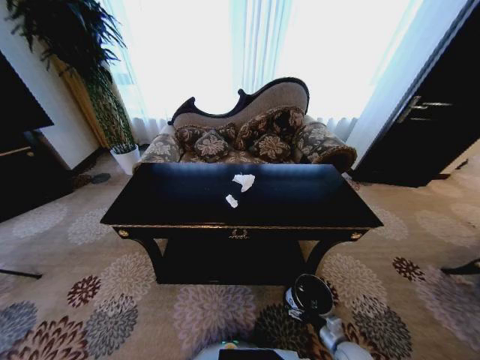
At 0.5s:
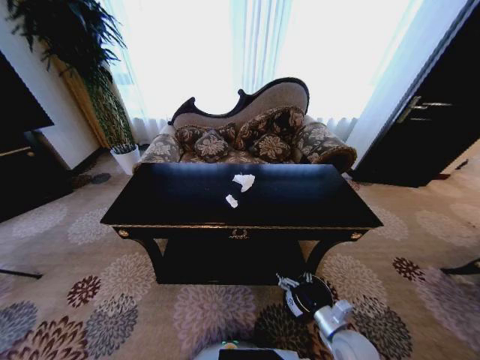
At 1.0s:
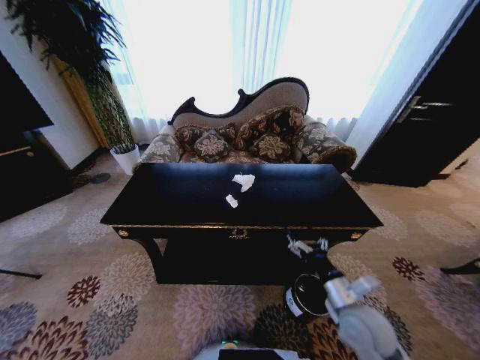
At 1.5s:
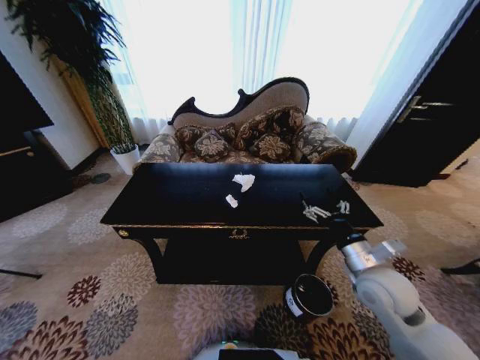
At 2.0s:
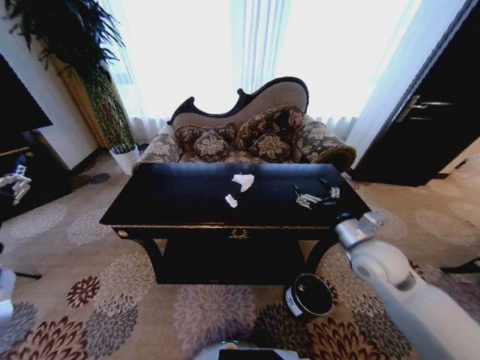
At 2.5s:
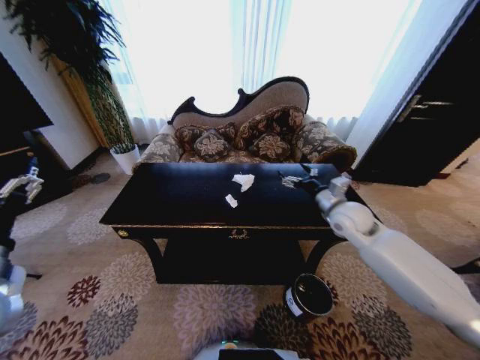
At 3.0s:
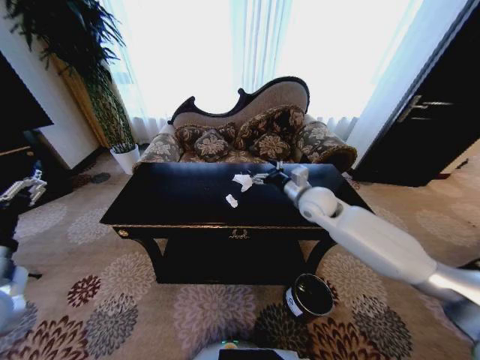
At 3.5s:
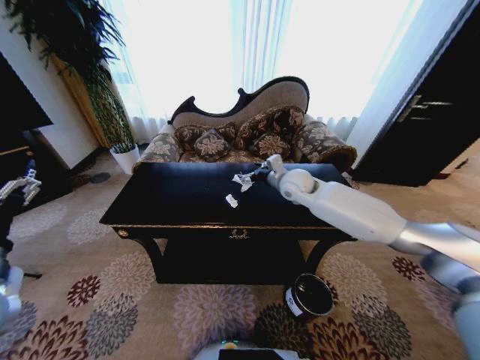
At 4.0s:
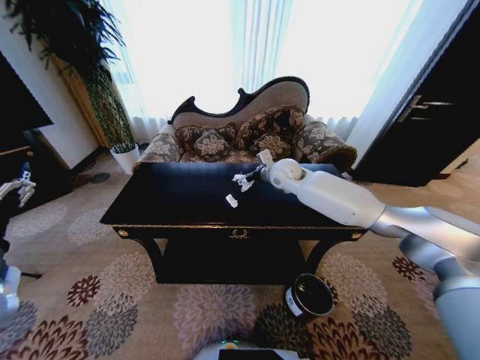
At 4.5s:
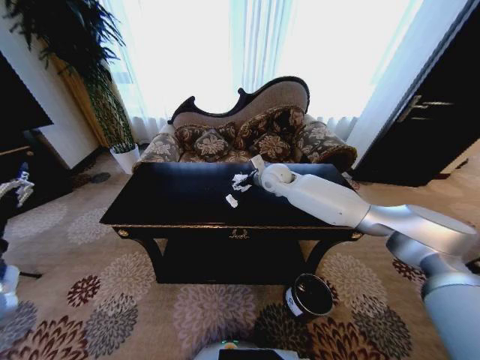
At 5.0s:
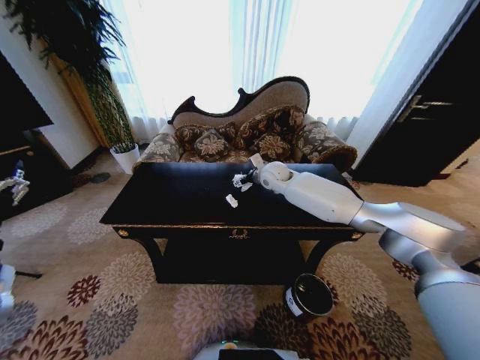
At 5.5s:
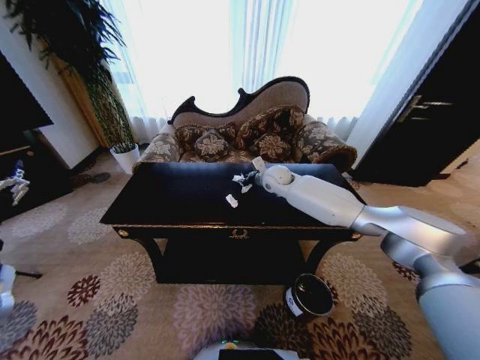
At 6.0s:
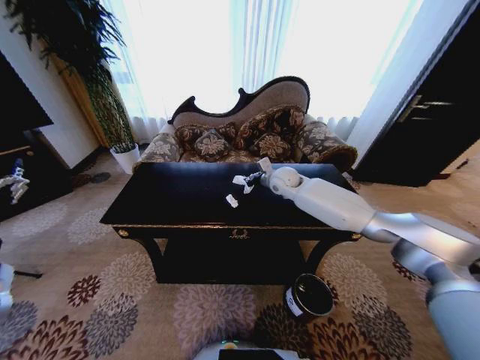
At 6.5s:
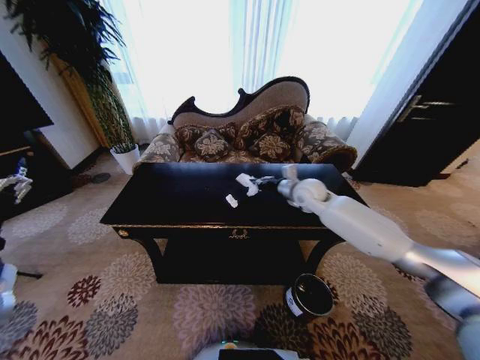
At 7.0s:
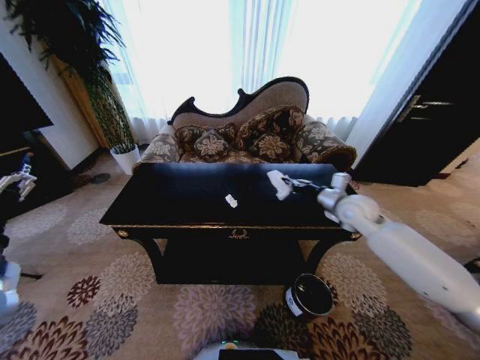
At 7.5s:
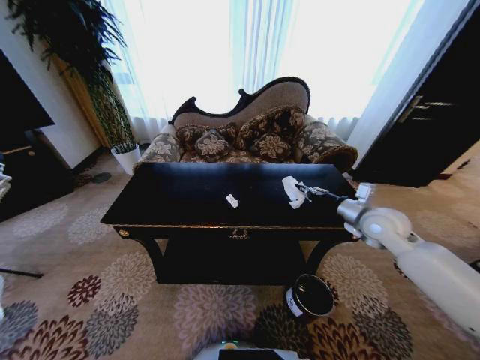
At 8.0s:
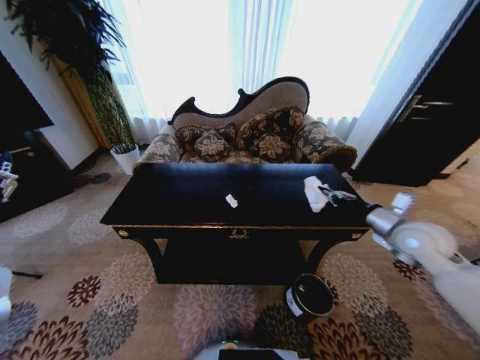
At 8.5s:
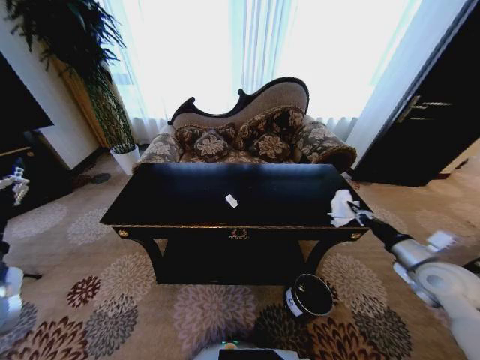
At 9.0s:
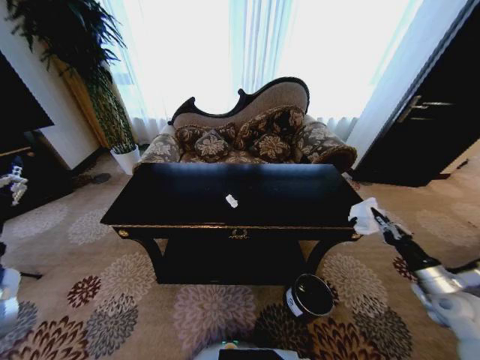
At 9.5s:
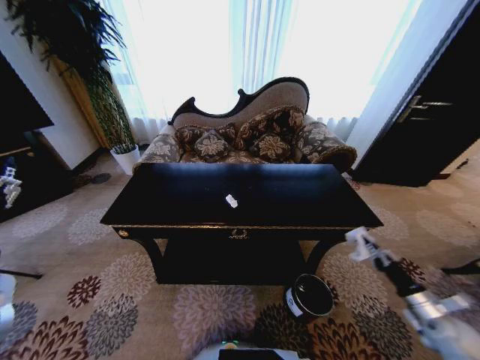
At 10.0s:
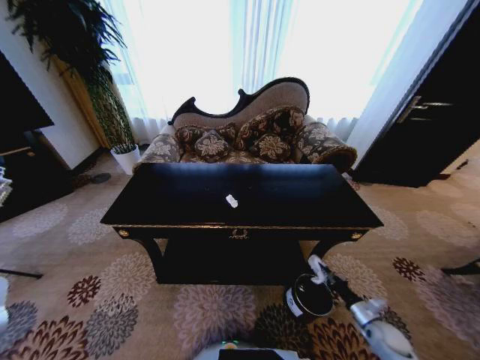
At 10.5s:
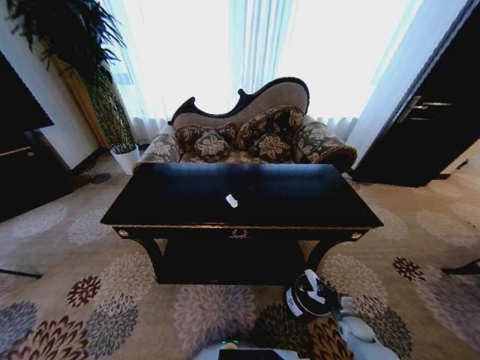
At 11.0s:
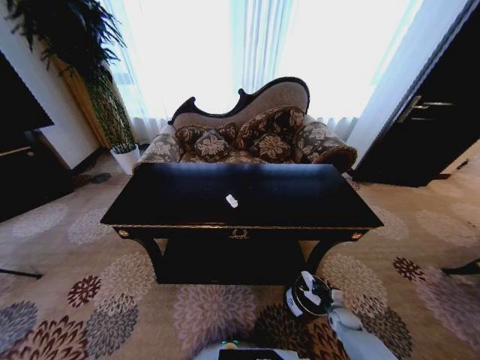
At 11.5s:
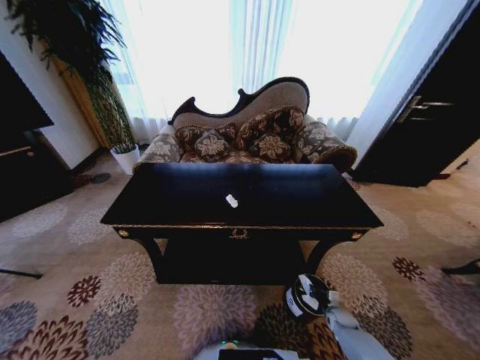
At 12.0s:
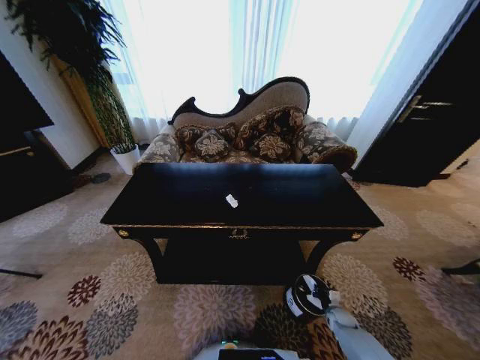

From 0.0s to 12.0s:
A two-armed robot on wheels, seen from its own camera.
Task of the whole recording: Move to the front of the table and place the trash on the table into the trash bin.
From 0.0s to 2.0s: The right gripper is displaced upward and forward by about 40 cm.
From 2.0s to 4.0s: The right gripper shifts some 30 cm forward and to the left.
From 4.0s to 6.0s: The right gripper closes.
From 6.0s to 8.0s: The right gripper heads to the right and backward, covering approximately 35 cm.
From 8.0s to 10.0s: The right gripper is displaced downward and backward by roughly 35 cm.
From 10.0s to 12.0s: The right gripper moves downward, forward and to the left, some 15 cm.

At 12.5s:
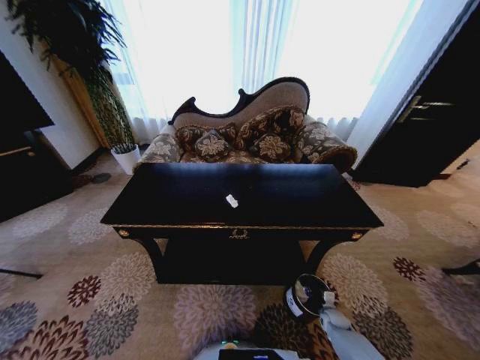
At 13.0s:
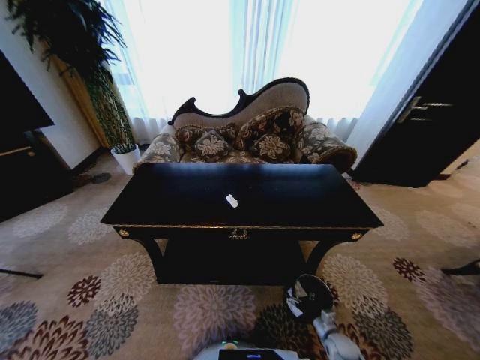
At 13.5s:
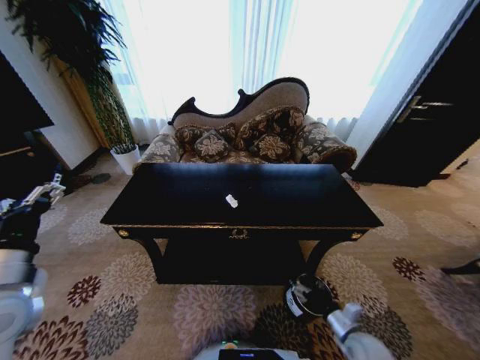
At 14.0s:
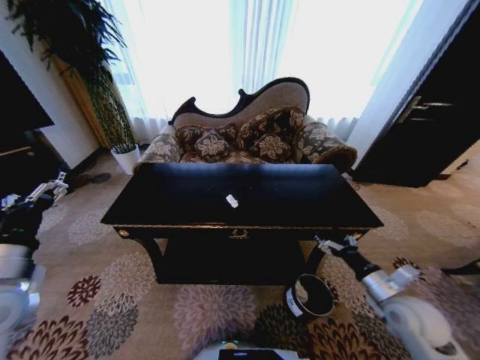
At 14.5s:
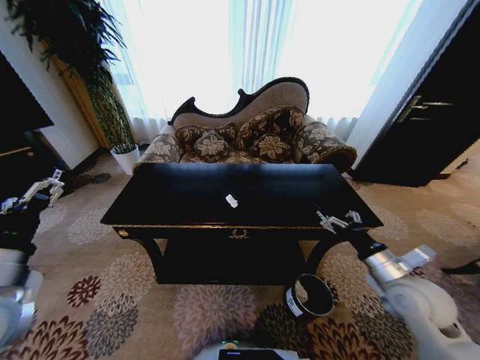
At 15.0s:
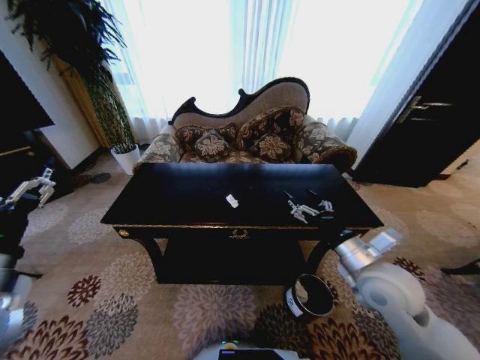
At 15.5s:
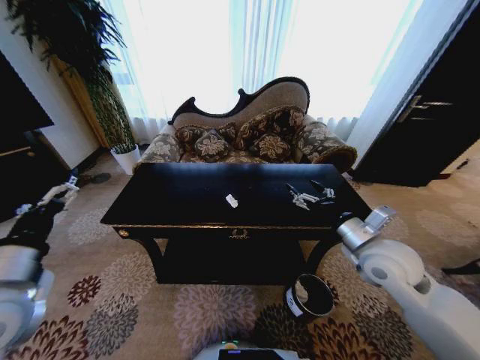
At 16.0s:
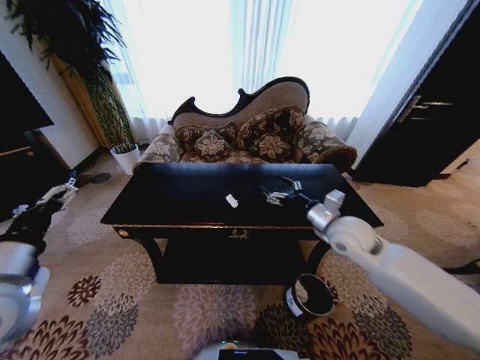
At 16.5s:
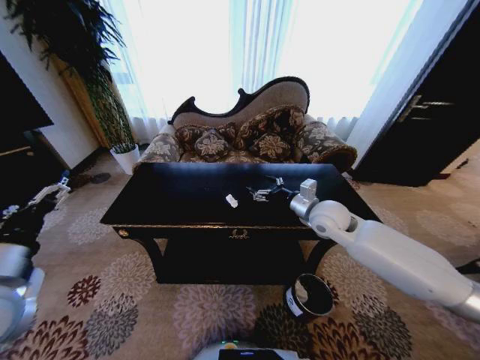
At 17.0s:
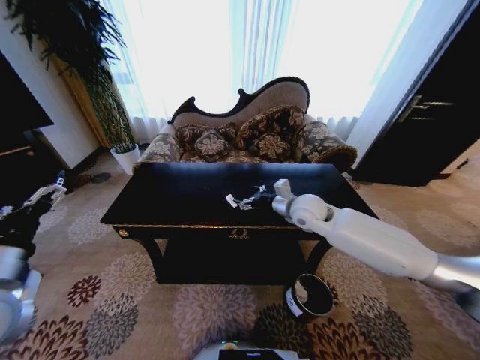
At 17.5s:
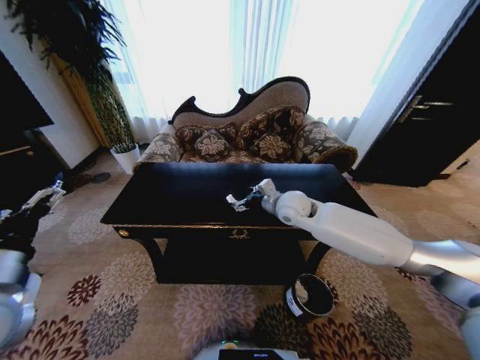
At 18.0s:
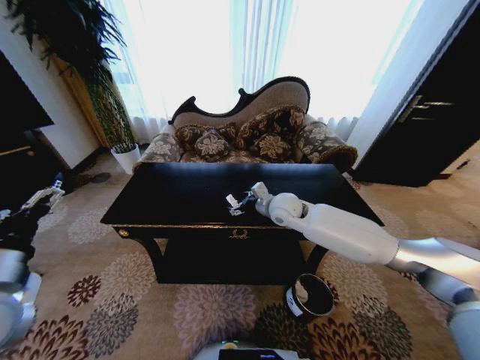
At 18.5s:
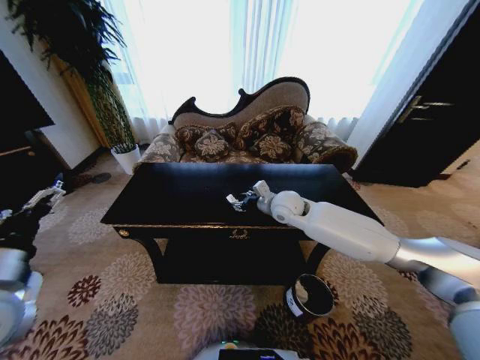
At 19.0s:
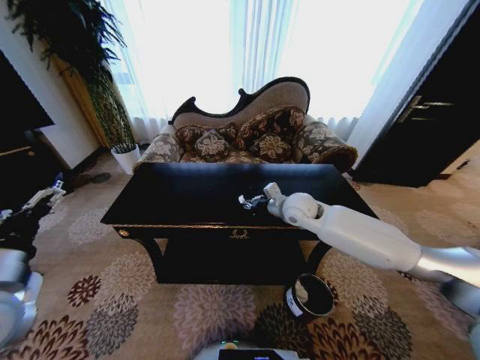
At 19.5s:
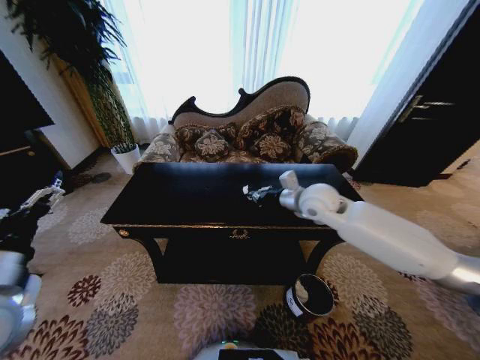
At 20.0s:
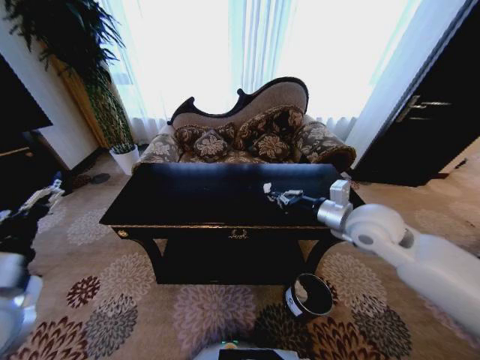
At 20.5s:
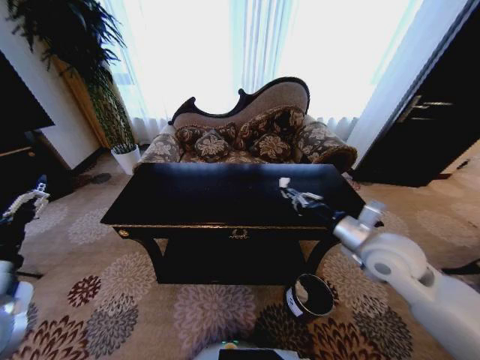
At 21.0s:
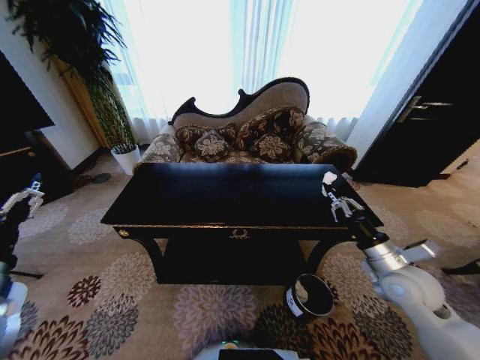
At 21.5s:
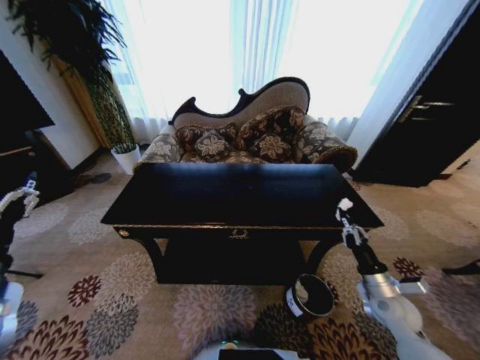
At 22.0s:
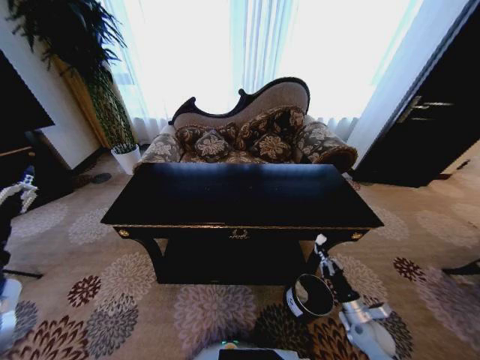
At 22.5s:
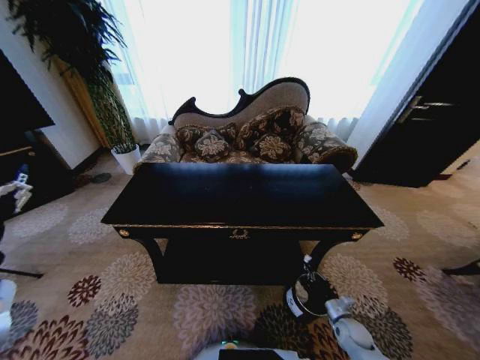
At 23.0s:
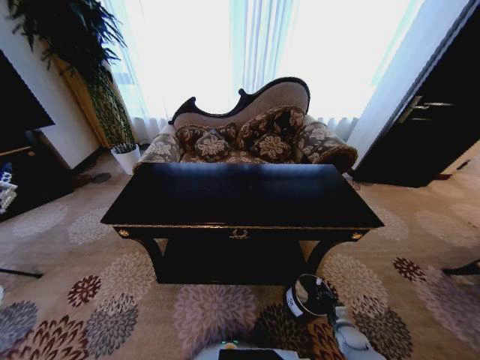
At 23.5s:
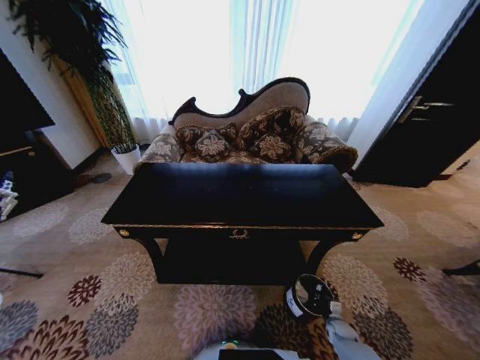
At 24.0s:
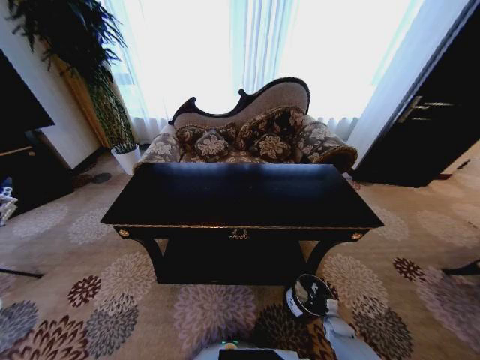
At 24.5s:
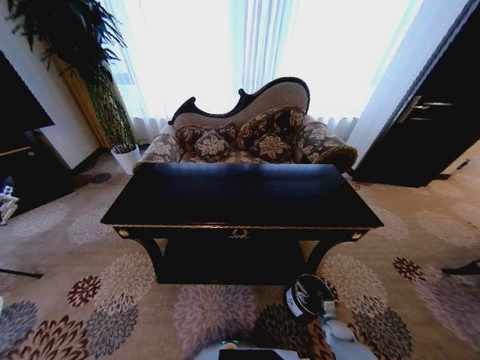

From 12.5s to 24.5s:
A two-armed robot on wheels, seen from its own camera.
Task of the whole recording: Move to the front of the table and place the trash on the table into the trash bin.
From 12.5s to 14.5s: The right gripper goes roughly 40 cm upward, and opens its fingers. The left gripper ends up some 5 cm from where it was.
From 14.5s to 16.5s: The right gripper shifts some 20 cm forward and to the left.
From 16.5s to 18.5s: The right gripper heads to the left and forward, covering roughly 10 cm, and closes its fingers.
From 18.5s to 20.5s: The right gripper goes about 25 cm backward and to the right, and closes its fingers.
From 20.5s to 22.5s: The right gripper travels downward by approximately 40 cm.
From 22.5s to 24.5s: The right gripper goes about 10 cm downward, and opens its fingers.

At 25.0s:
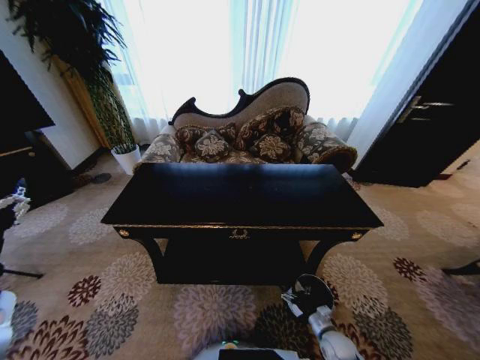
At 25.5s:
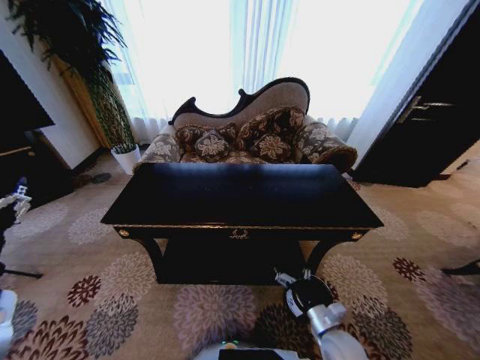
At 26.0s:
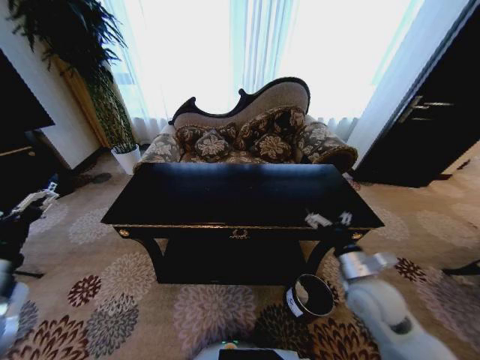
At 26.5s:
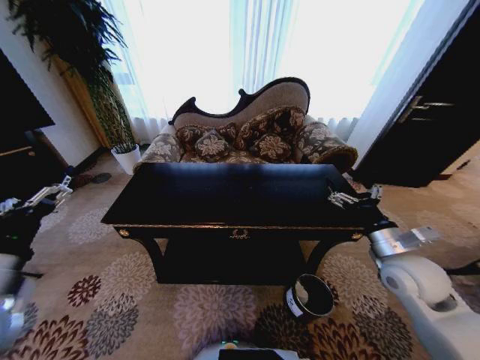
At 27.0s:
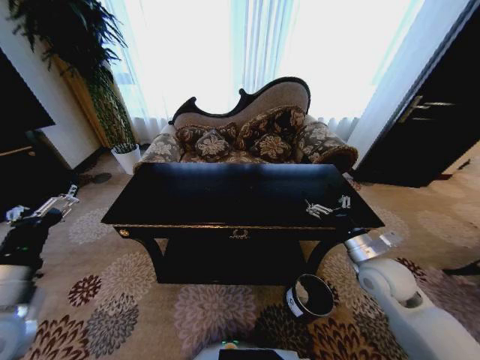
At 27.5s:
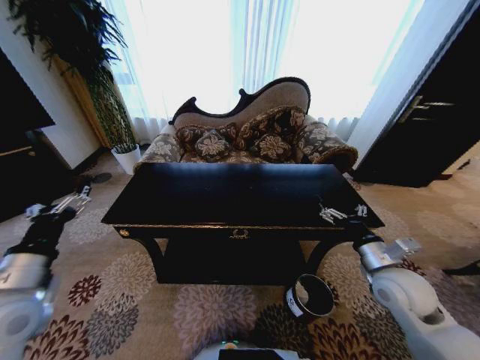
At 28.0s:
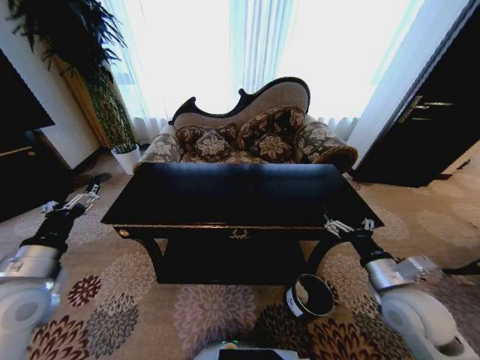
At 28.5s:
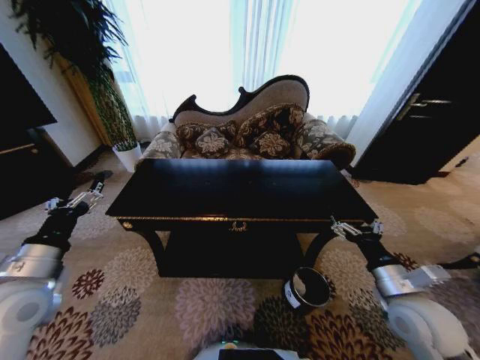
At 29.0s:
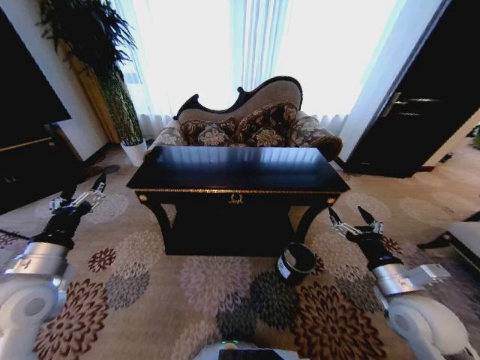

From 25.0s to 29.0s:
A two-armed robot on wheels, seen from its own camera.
Task of the whole recording: Move to the front of the table and place the trash on the table into the trash bin.
From 25.0s to 27.0s: The right gripper shifts some 30 cm upward.
From 27.0s to 29.0s: The right gripper travels backward by approximately 10 cm; the left gripper moves forward, roughly 5 cm.
